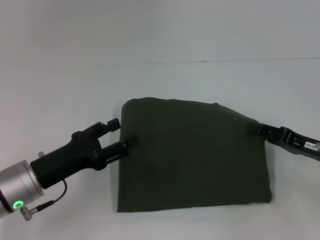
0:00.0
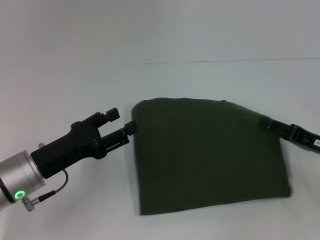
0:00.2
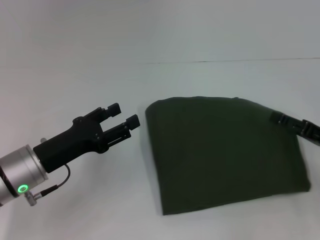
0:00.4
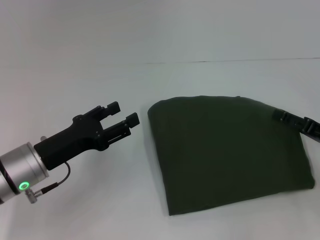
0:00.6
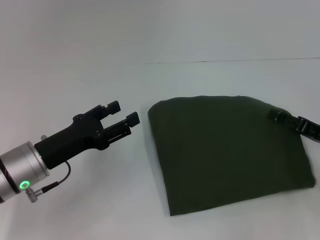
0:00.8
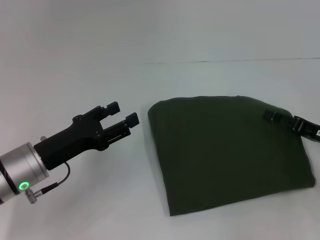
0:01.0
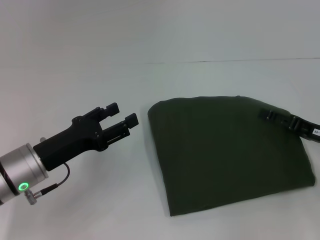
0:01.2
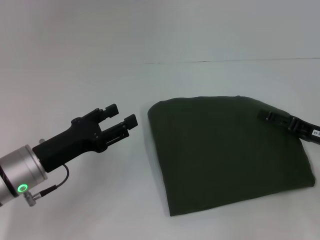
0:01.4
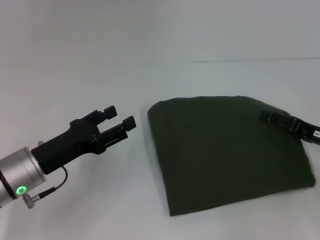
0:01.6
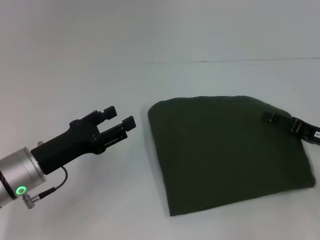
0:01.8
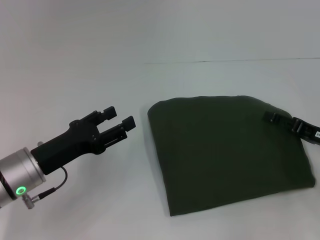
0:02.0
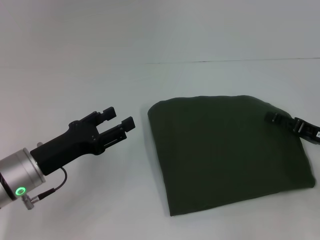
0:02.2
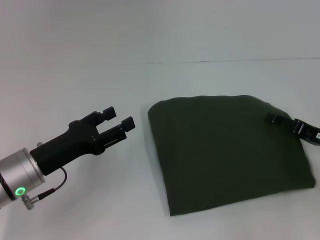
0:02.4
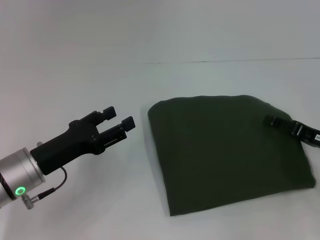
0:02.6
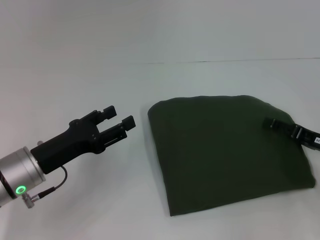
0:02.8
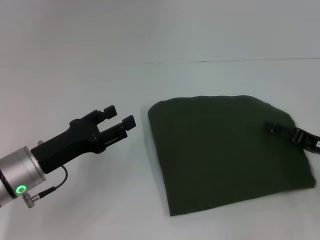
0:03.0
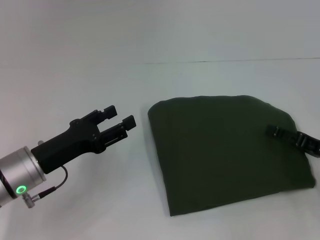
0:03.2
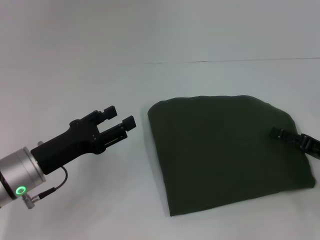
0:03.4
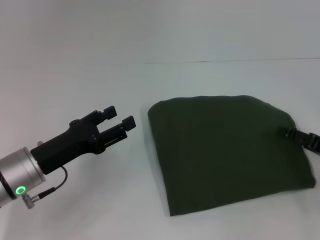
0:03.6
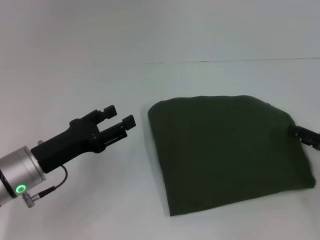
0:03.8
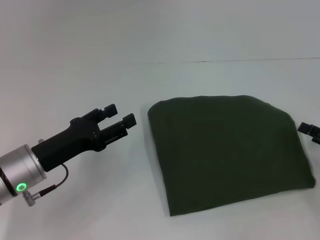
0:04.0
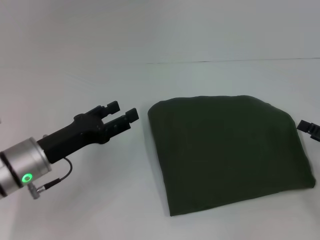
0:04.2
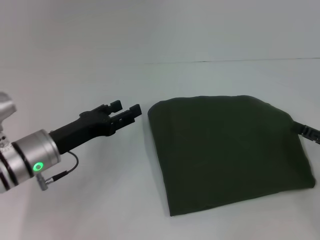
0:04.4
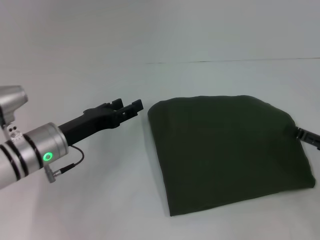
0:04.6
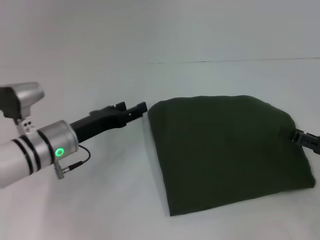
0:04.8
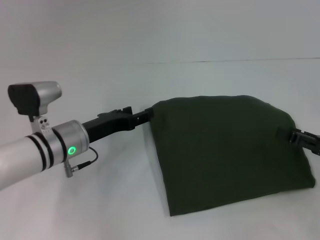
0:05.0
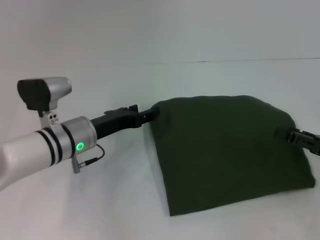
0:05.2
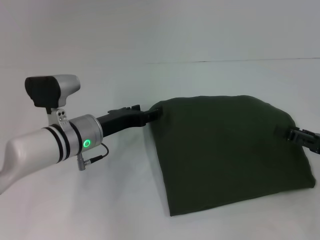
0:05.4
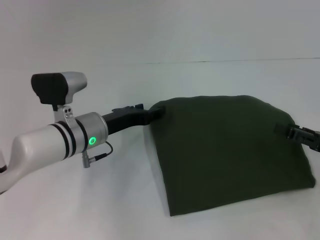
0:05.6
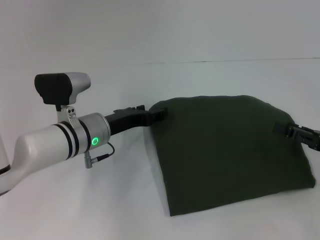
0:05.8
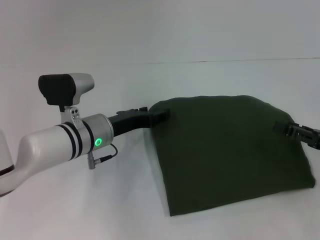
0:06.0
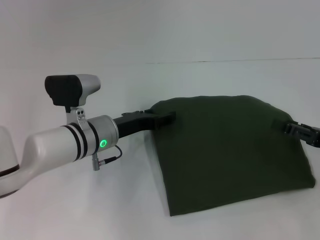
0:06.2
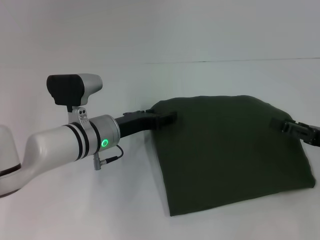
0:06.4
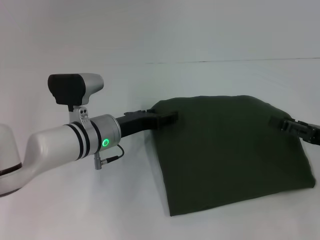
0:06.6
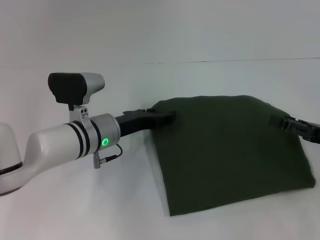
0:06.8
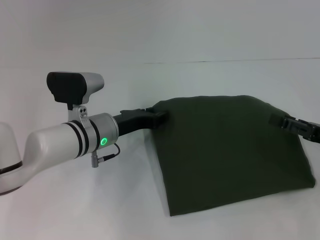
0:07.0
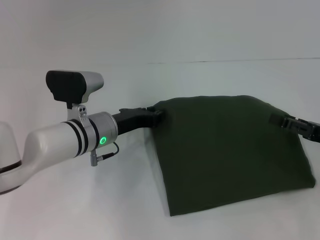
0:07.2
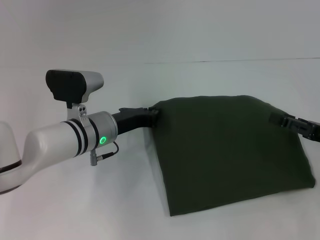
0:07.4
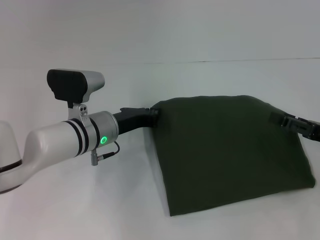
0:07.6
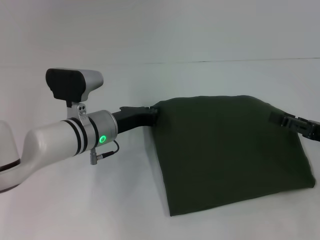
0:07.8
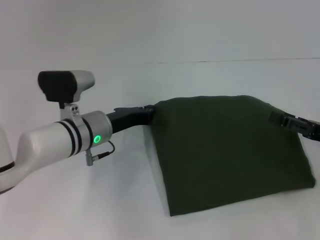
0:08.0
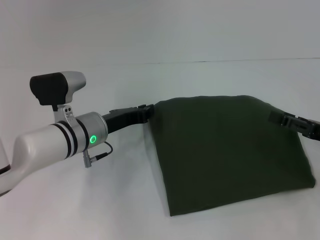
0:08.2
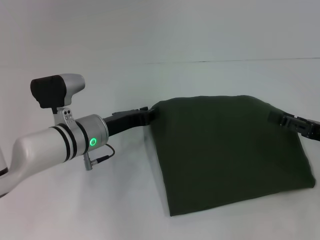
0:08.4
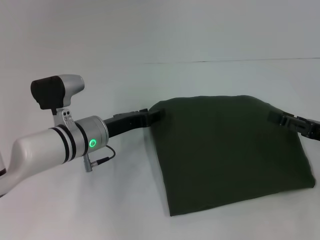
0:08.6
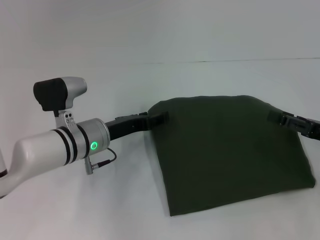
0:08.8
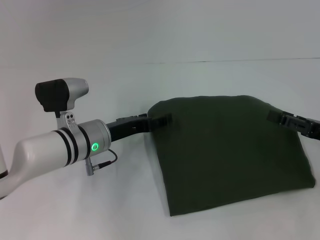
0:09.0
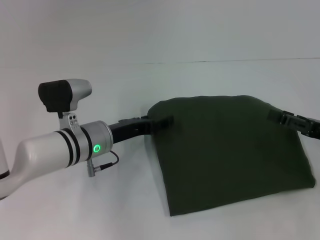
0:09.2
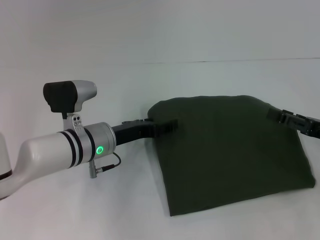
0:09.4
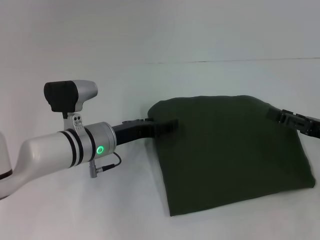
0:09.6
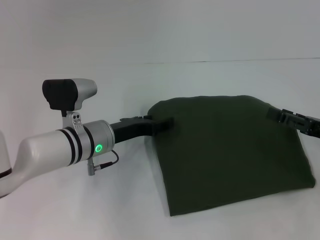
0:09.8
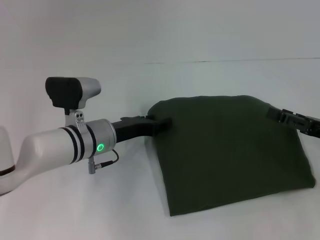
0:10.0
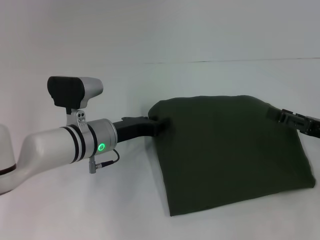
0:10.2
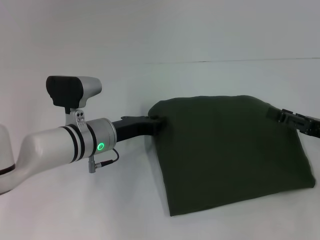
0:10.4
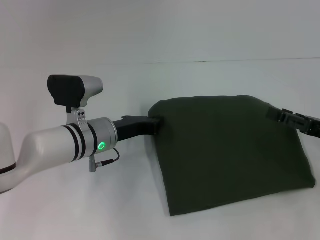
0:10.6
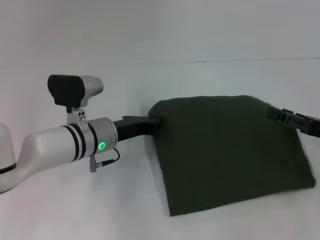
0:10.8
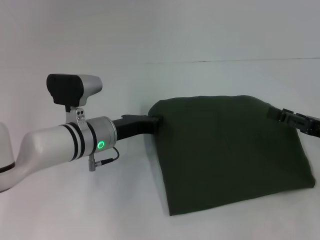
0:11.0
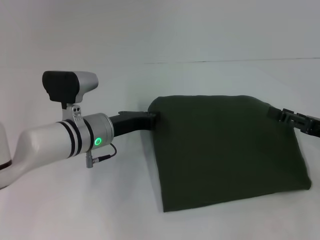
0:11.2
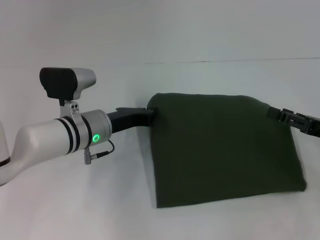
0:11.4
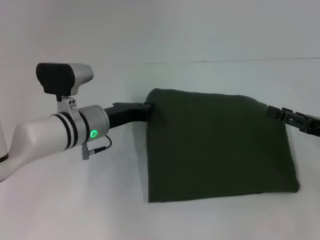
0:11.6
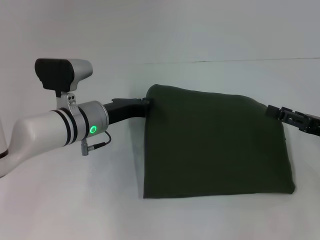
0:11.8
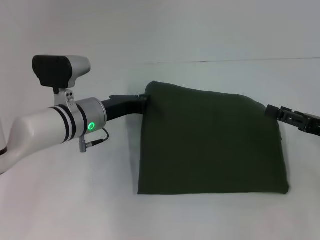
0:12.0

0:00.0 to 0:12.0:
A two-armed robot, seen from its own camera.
Step, 0:00.0 to 0:02.4: Fold the clothes with your left hand.
0:00.0 to 0:01.6: The right gripper opens up.
0:01.6 to 0:03.0: There are only small adjustments of the grippers.
0:03.0 to 0:04.4: The right gripper changes place by about 5 cm.
0:04.4 to 0:06.0: The left gripper goes approximately 10 cm to the right and forward.
0:06.0 to 0:07.6: The left gripper closes its fingers.
0:07.6 to 0:09.0: The left gripper opens its fingers.
0:09.0 to 0:10.4: The left gripper closes up.
0:10.4 to 0:12.0: The left gripper closes.

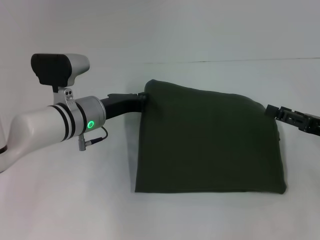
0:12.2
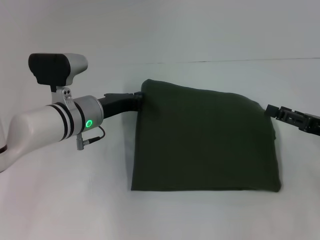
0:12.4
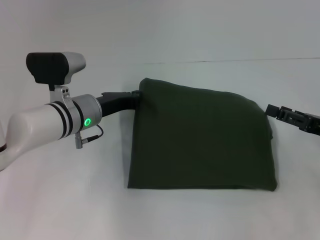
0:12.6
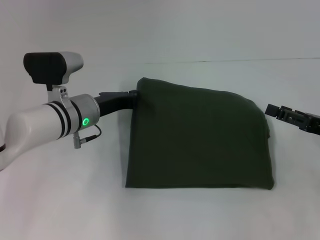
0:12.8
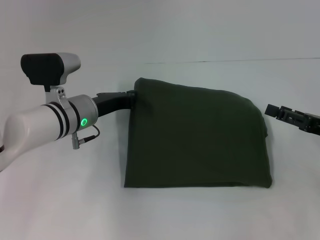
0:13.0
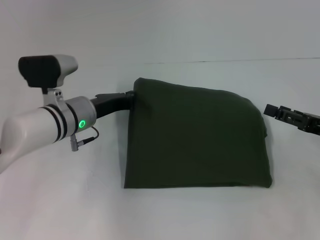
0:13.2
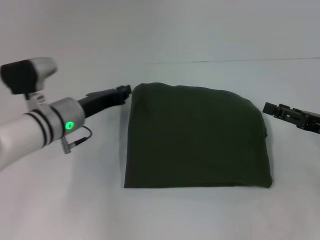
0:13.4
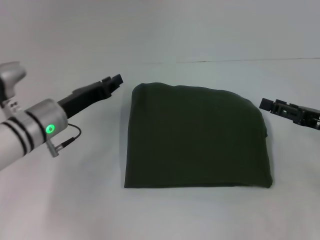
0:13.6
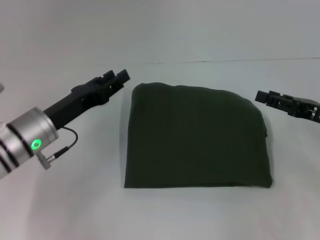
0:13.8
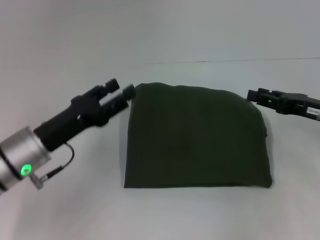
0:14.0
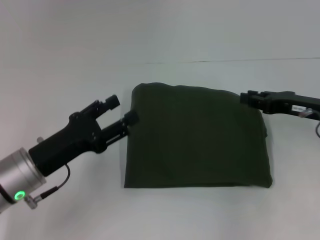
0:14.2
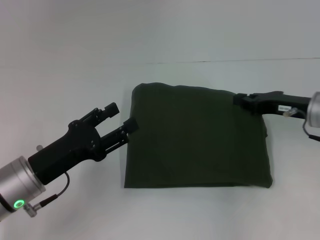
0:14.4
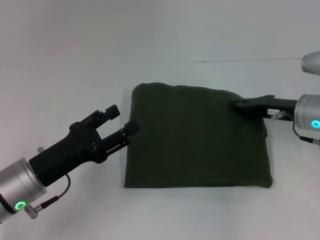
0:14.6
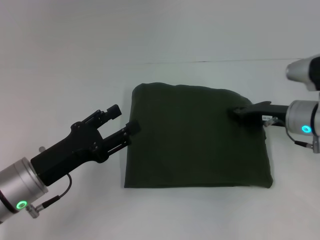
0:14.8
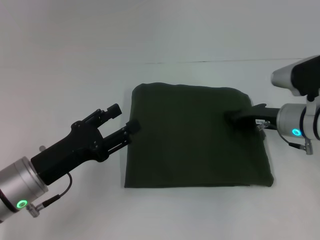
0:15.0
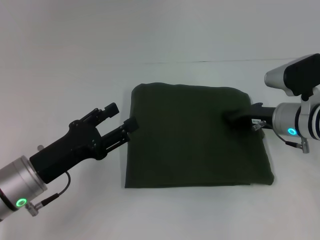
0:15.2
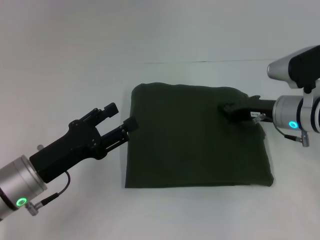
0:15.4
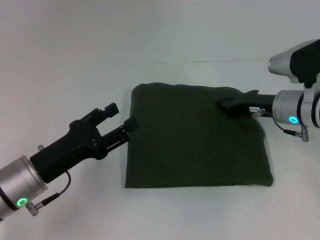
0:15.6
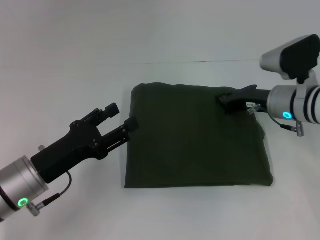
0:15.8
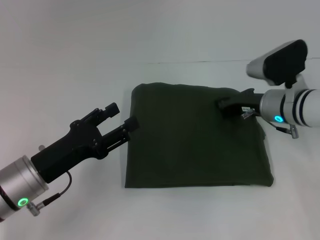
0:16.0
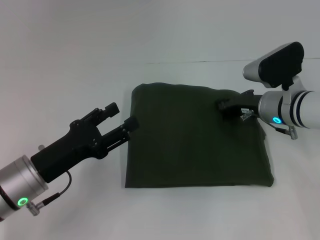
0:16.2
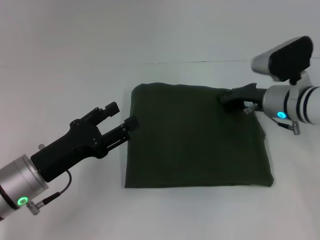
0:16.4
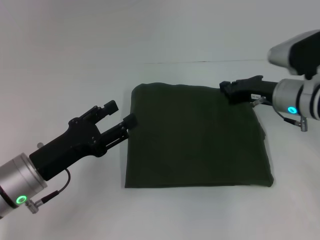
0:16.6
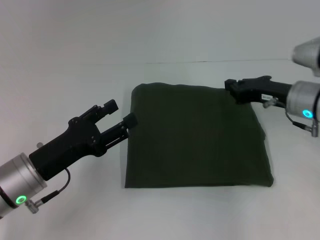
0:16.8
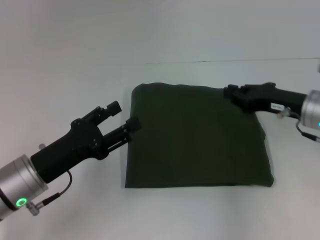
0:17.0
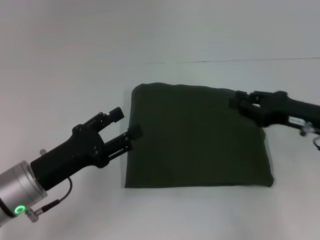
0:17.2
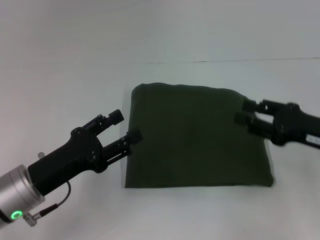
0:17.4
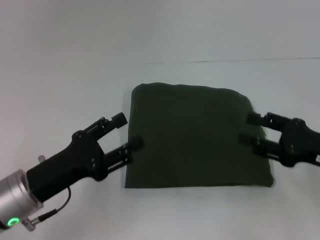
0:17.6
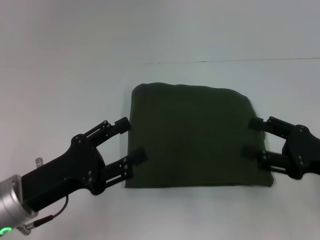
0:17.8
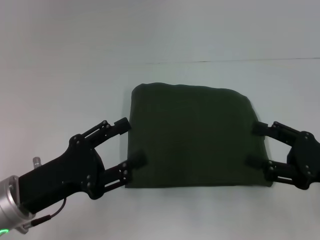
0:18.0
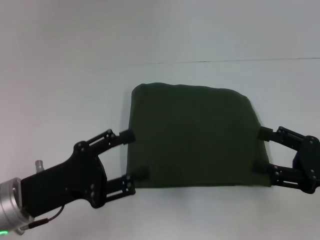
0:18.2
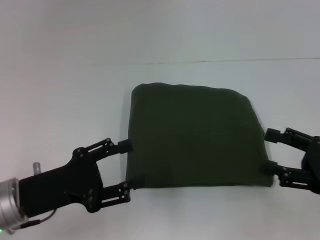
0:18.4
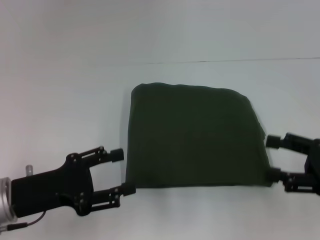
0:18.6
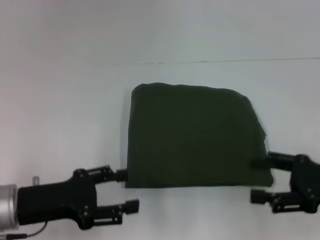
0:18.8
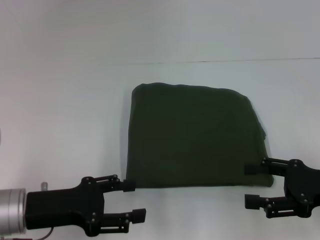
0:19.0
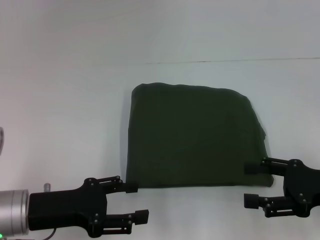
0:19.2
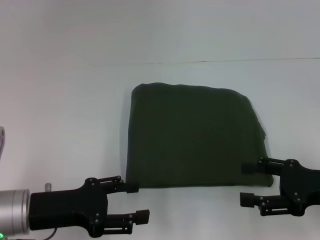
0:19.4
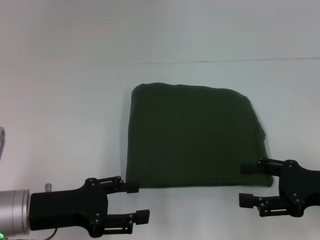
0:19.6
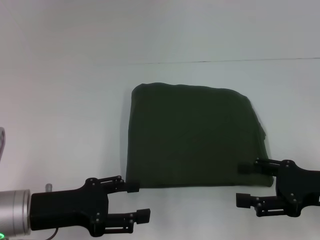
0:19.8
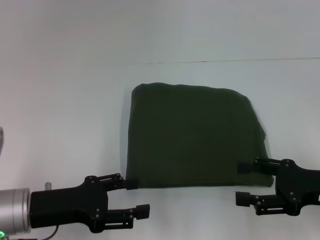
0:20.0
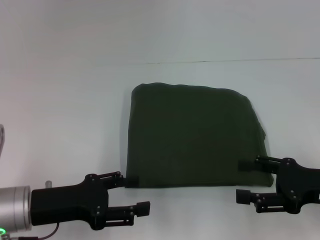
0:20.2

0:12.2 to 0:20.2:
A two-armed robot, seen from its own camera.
0:12.2 to 0:13.8: The left gripper heads to the left and backward, covering approximately 10 cm.
0:13.8 to 0:15.4: The right gripper moves to the left and forward, some 10 cm, and closes its fingers, while the left gripper moves backward, some 5 cm, and opens up.
0:15.4 to 0:17.0: The grippers stay close to where they were, moving slightly.
0:17.0 to 0:18.6: The right gripper moves backward and to the right, roughly 15 cm, and opens up.
0:18.6 to 0:20.2: There are only small adjustments of the grippers.

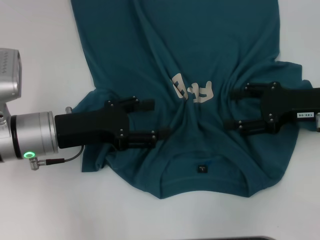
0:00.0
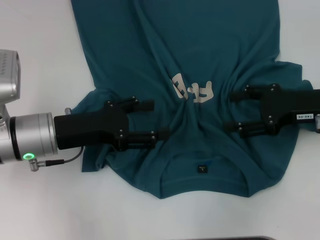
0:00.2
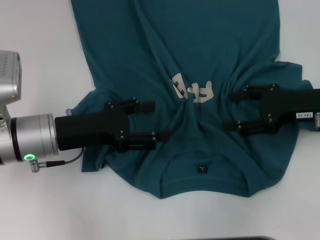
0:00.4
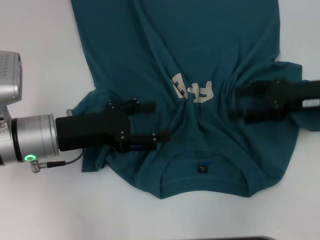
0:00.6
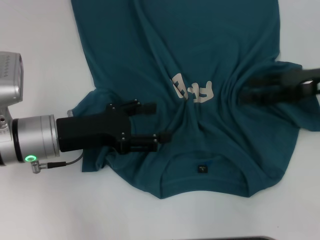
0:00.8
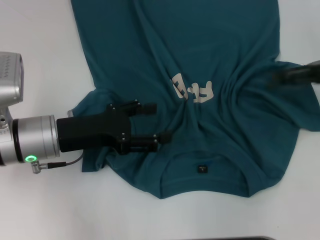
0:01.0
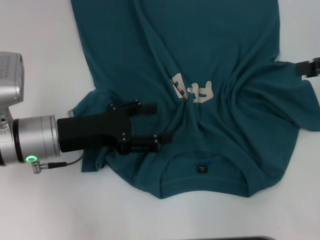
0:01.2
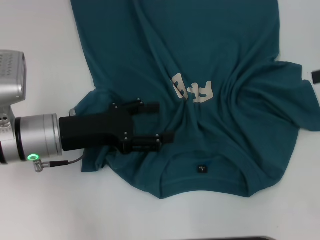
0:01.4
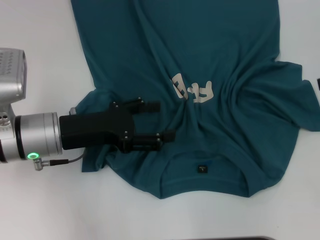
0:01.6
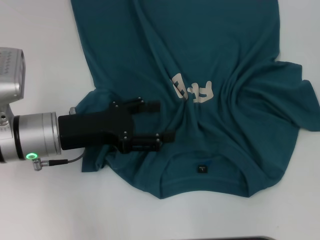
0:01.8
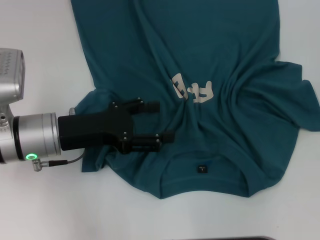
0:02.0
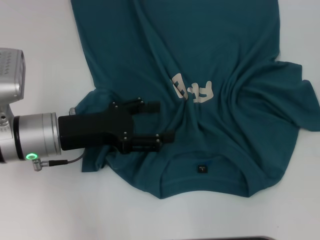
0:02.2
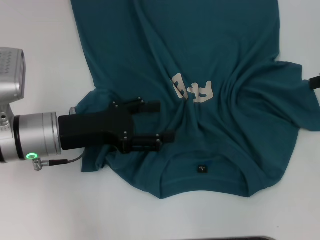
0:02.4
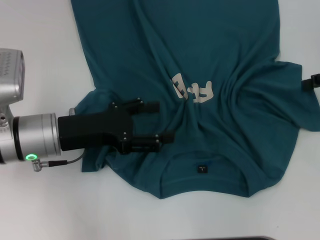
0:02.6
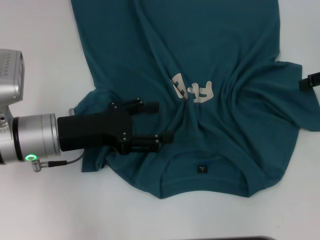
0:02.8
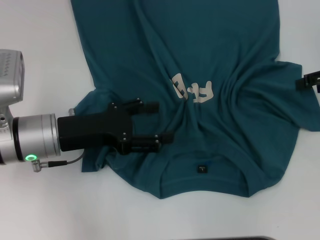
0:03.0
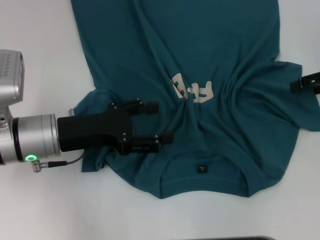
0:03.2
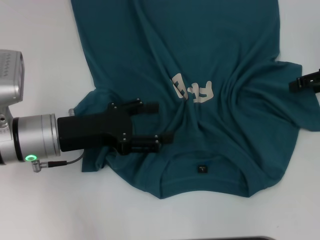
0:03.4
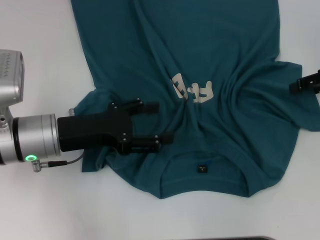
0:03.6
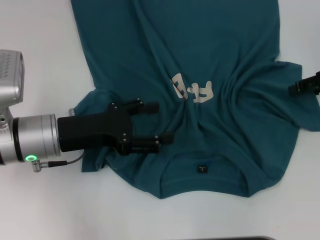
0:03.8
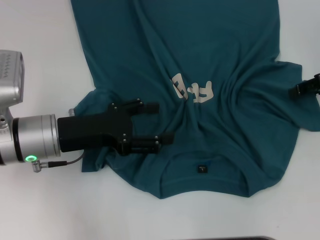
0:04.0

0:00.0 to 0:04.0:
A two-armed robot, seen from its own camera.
0:00.0 to 0:01.4: The right gripper heads to the right and upward, covering some 15 cm.
0:01.4 to 0:02.6: The grippers stay close to where they were, moving slightly.
0:02.6 to 0:04.0: The grippers stay close to where they were, moving slightly.
